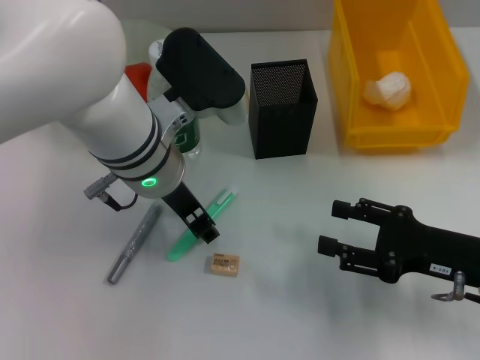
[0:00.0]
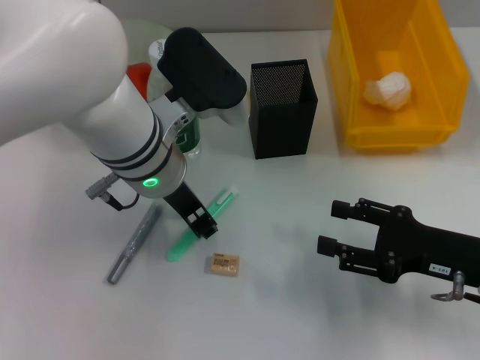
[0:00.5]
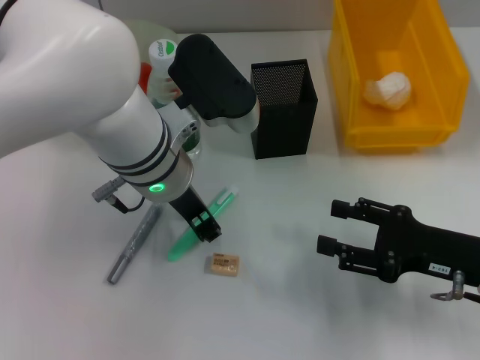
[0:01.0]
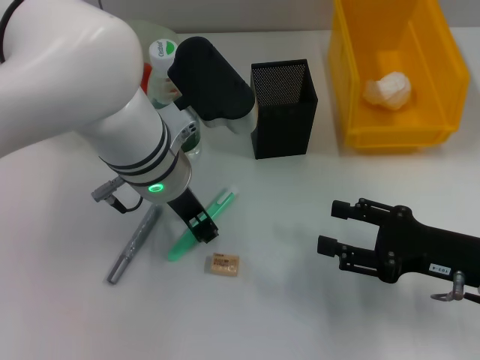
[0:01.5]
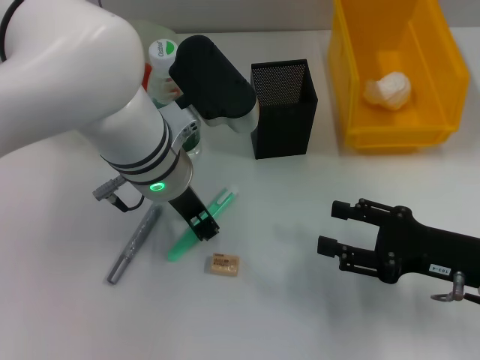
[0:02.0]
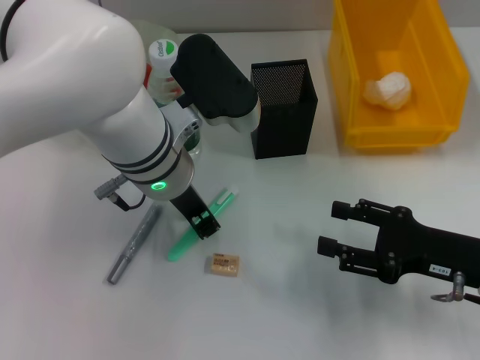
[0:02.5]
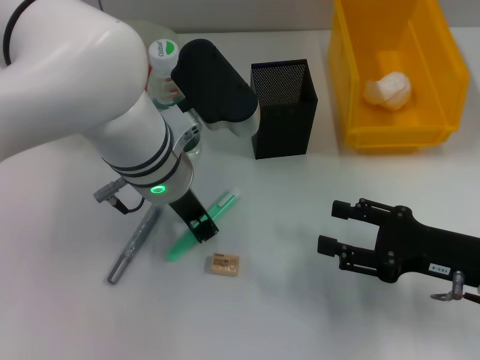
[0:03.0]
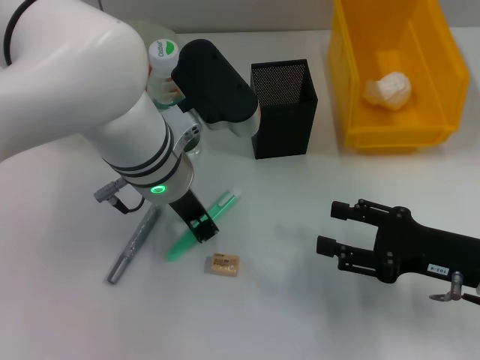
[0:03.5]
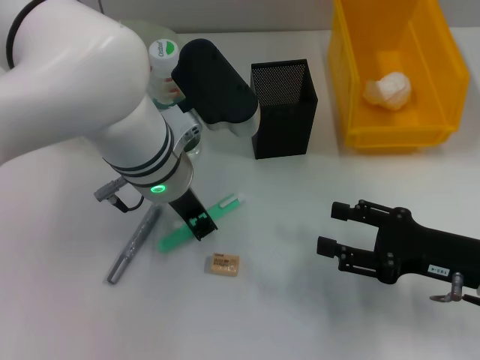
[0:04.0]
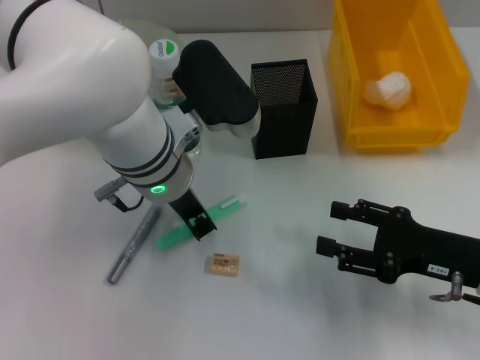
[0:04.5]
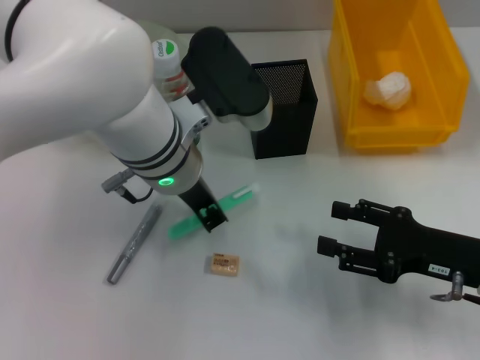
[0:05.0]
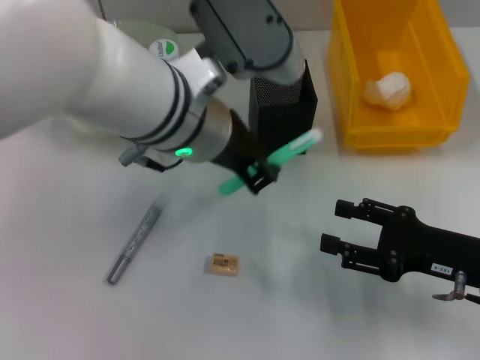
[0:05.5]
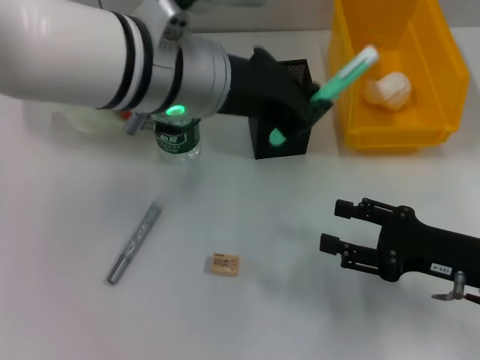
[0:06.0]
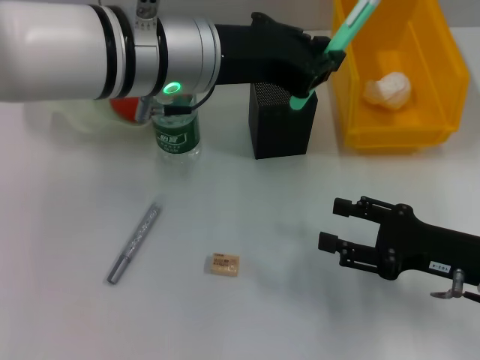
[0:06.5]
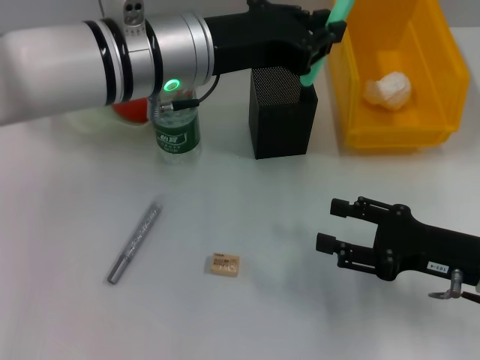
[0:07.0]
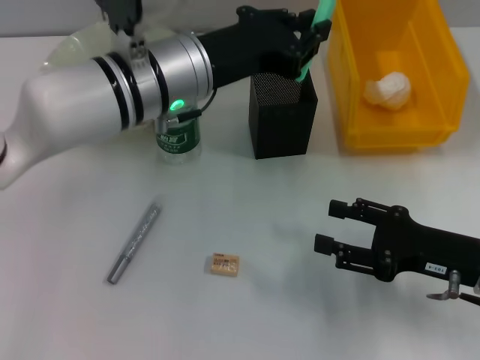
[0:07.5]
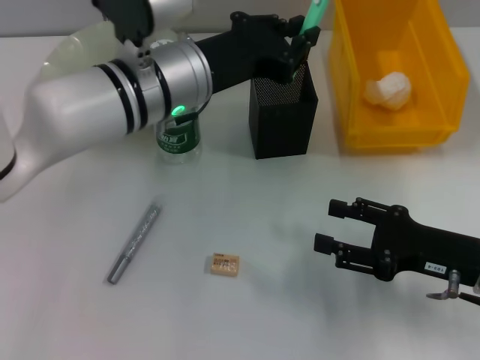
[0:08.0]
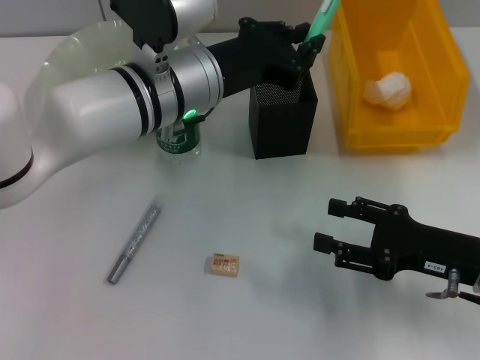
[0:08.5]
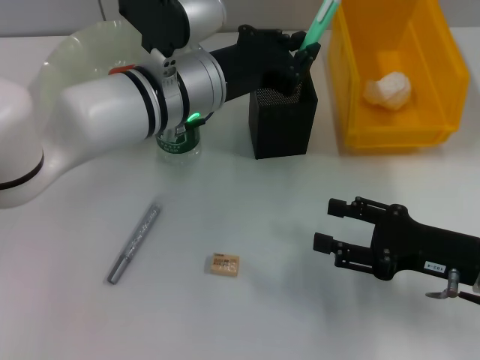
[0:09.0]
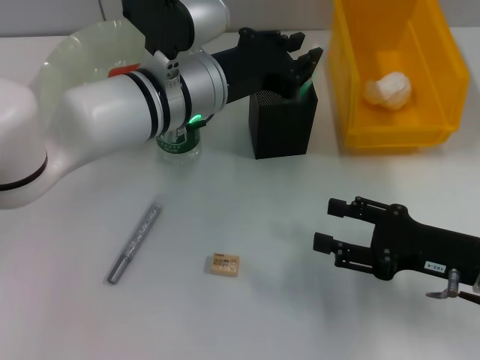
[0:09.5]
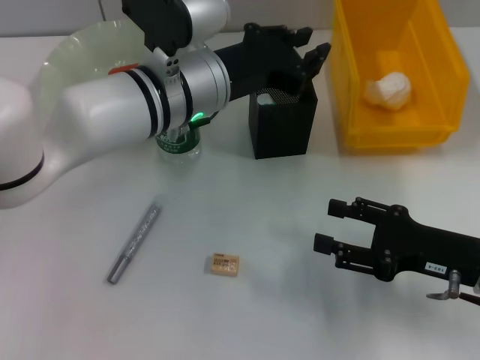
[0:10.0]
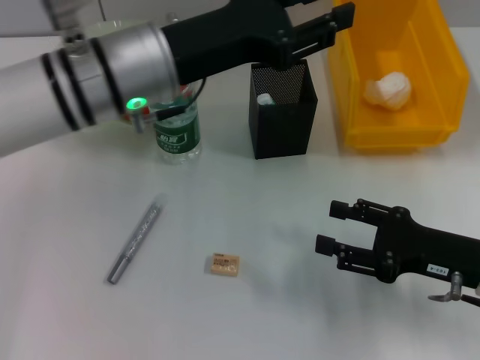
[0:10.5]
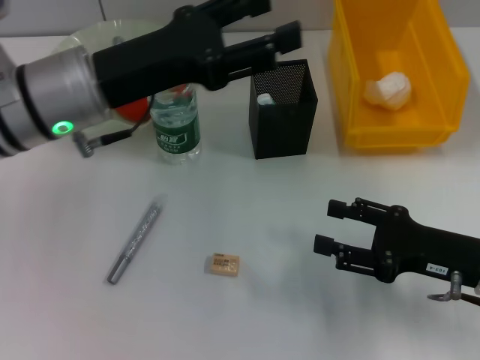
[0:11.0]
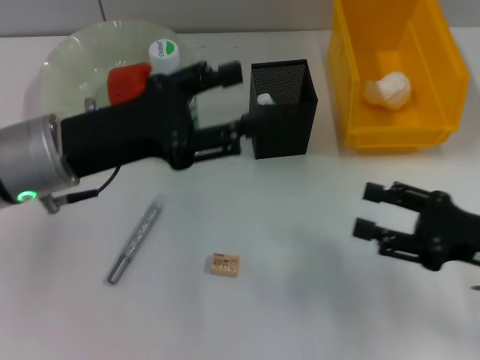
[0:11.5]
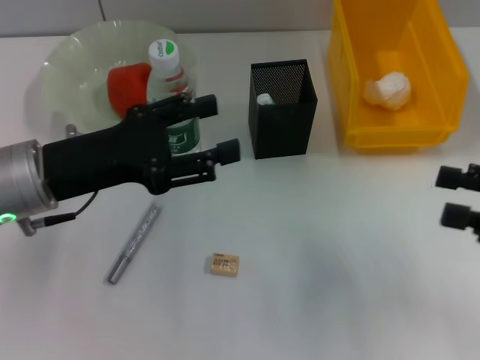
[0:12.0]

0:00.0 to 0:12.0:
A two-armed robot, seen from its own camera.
Step, 0:00.0 to 0:04.0: Grab the blue utility knife with the left hand.
Step, 0:04.5 to 0:10.0: Place the blue utility knife into the pen holder with the left hand.
0:00.0 to 0:04.0: Neither gripper changes place.
0:04.0 to 0:06.0: The left gripper shifts some 10 cm upward.
0:06.0 to 0:08.0: The left gripper shifts about 10 cm downward.
0:08.0 to 0:10.0: There are only small adjustments of the grippers.
0:10.0 to 0:12.0: The right gripper is displaced upward and to the right by roughly 10 cm. Meanwhile the left gripper travels to the left and backward by approximately 15 cm, and opens up.

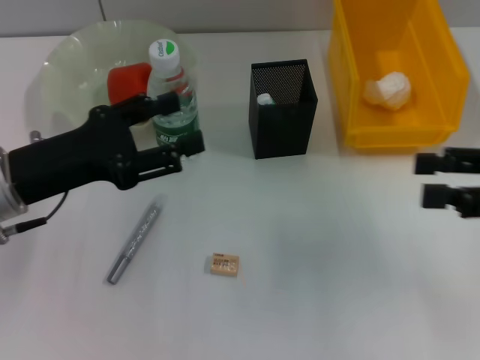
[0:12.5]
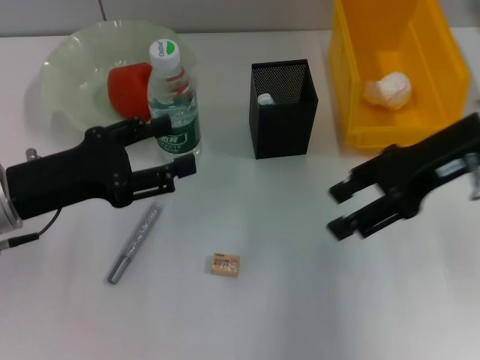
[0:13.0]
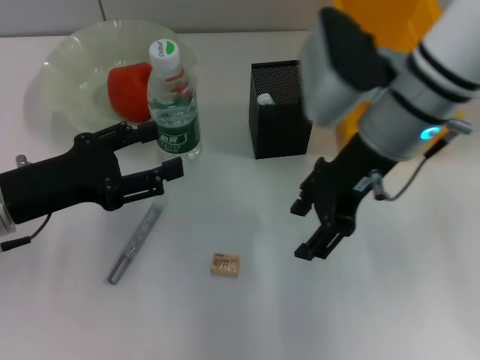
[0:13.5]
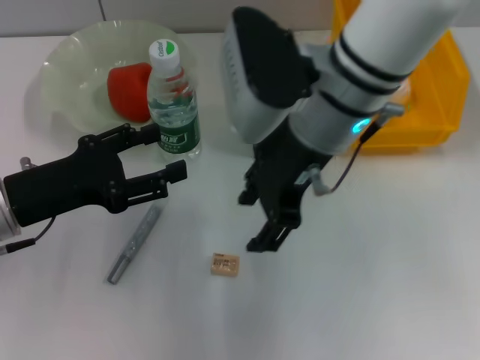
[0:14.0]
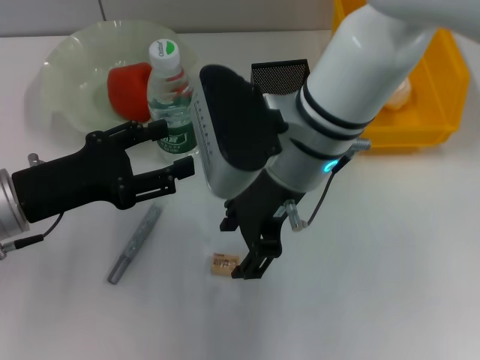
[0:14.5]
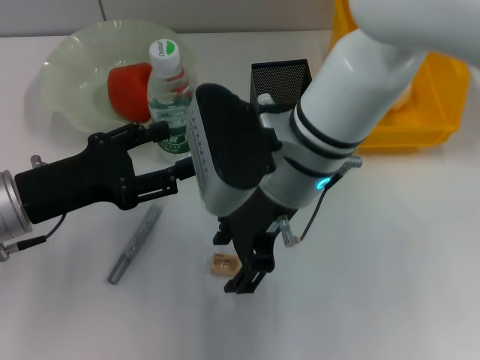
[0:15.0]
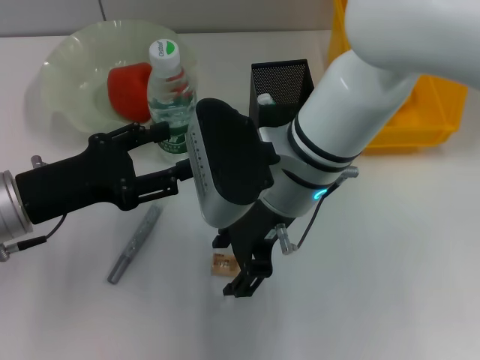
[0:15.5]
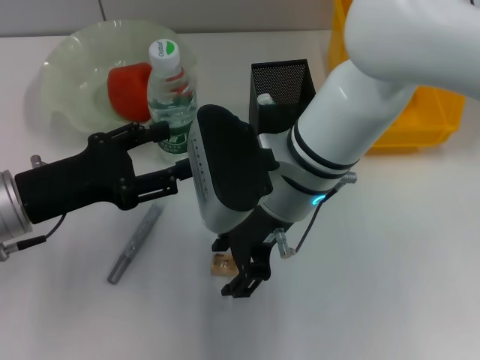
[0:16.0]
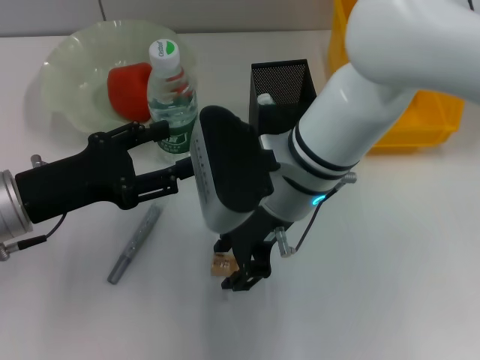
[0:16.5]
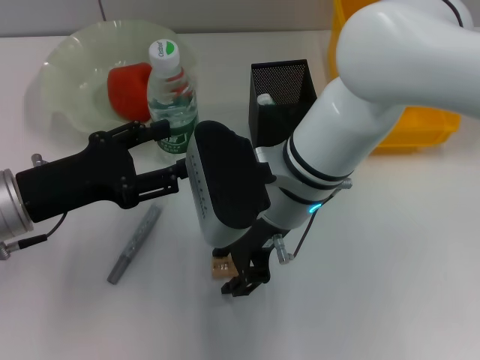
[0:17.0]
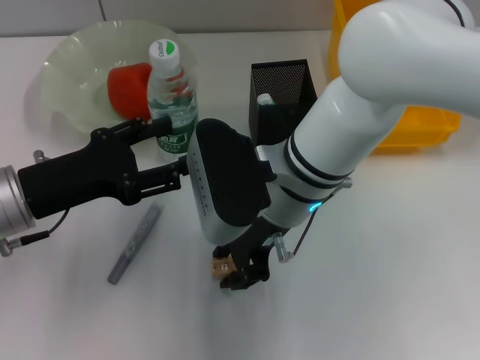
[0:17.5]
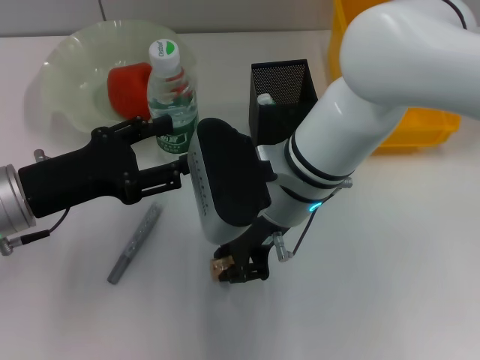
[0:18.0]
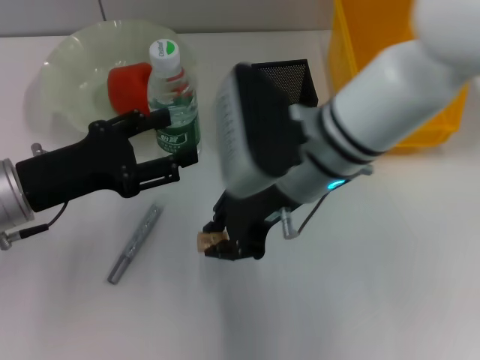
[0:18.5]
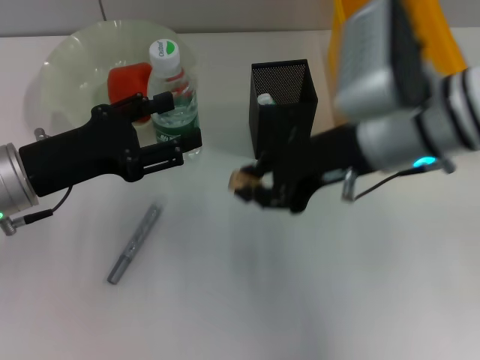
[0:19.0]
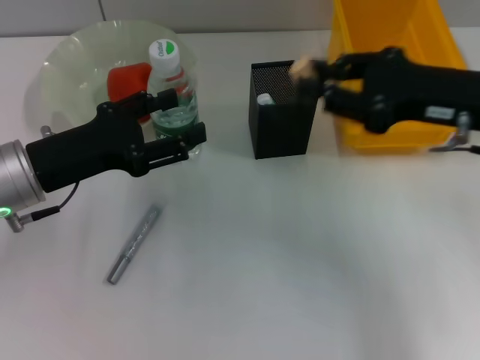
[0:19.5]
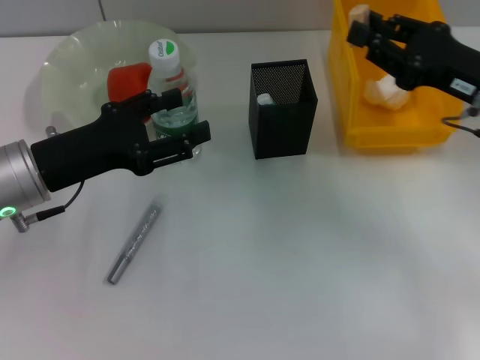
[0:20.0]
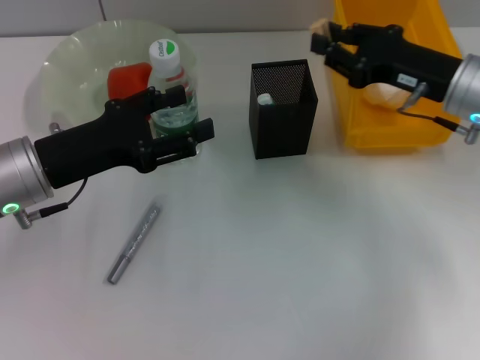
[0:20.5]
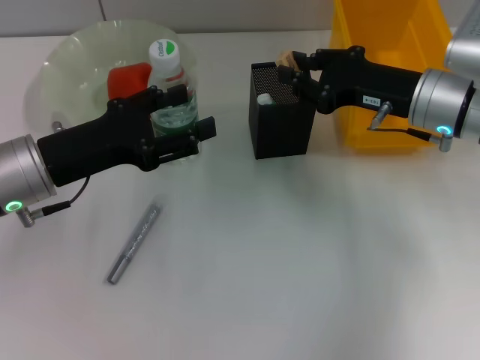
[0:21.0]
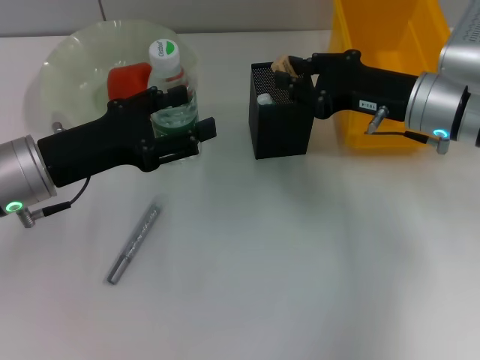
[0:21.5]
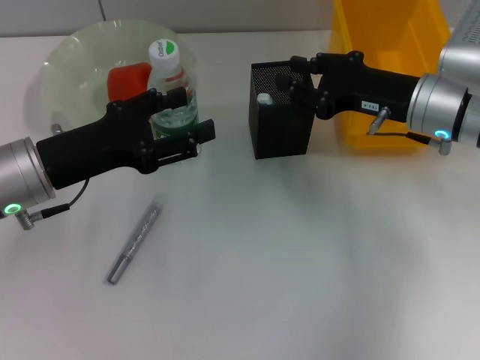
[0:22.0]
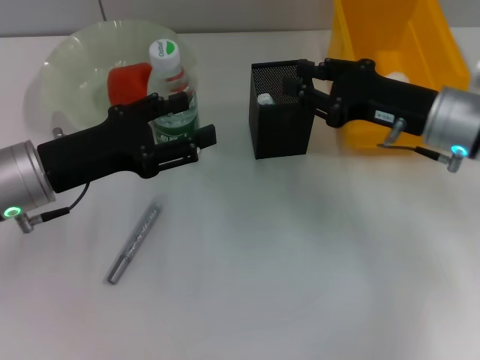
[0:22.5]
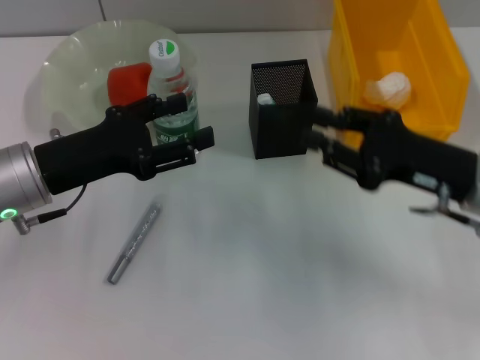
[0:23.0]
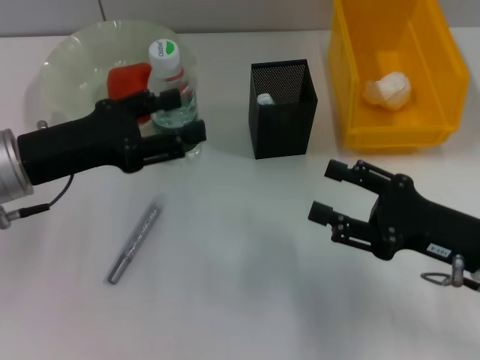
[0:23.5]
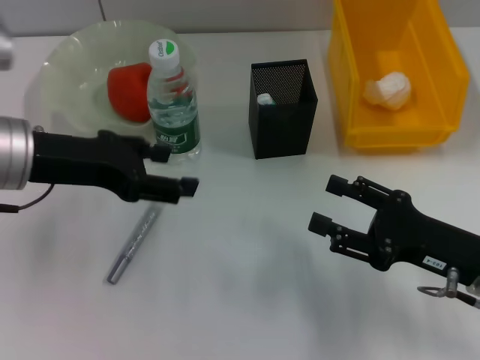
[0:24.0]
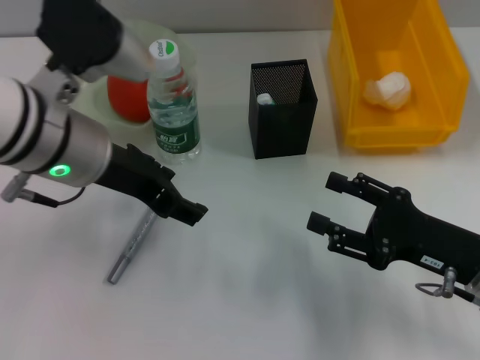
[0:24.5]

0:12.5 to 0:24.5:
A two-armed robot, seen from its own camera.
Step, 0:12.5 to 0:17.5: Grab the eraser with the right hand.
Step, 0:18.0 to 0:22.0: Put the eraser into the pen holder with the right hand.
0:12.5 to 0:14.5: The right gripper is displaced to the left by approximately 30 cm.
0:14.5 to 0:16.5: The grippers move only a little.
0:16.5 to 0:18.5: The right gripper closes up.
0:18.5 to 0:20.5: The right gripper moves to the right, about 15 cm.
0:20.5 to 0:22.5: There are only small adjustments of the grippers.
0:22.5 to 0:24.5: The left gripper travels upward and to the right by some 10 cm. Meanwhile the right gripper shifts about 15 cm backward and downward, and opens up.

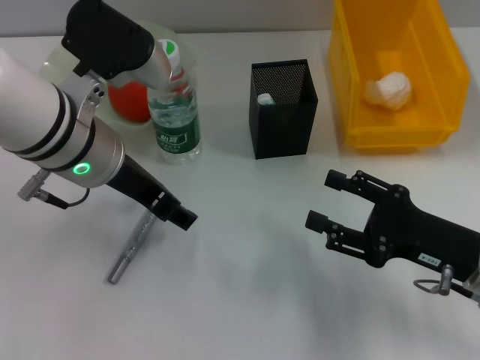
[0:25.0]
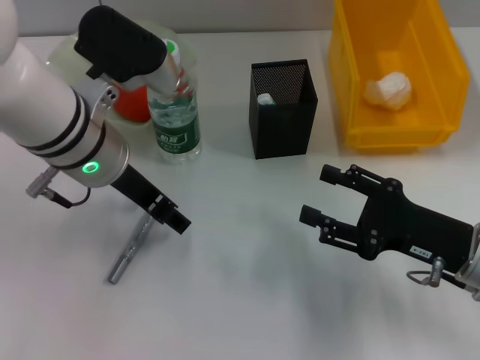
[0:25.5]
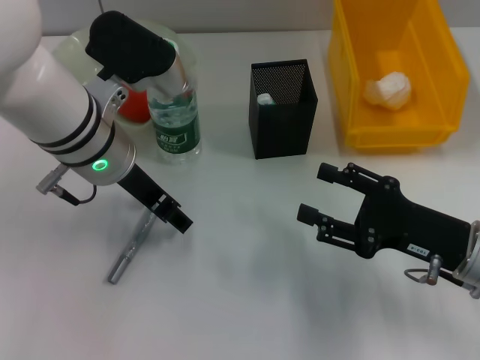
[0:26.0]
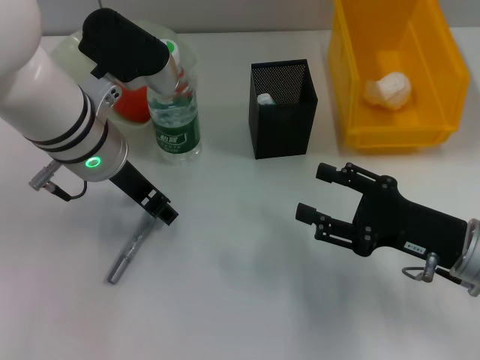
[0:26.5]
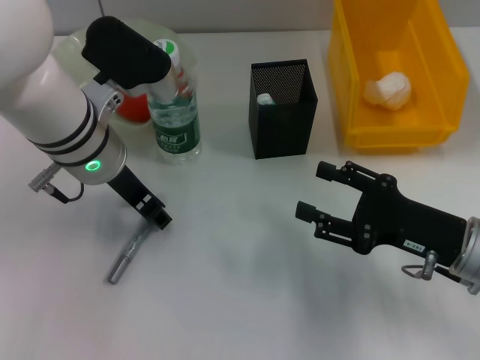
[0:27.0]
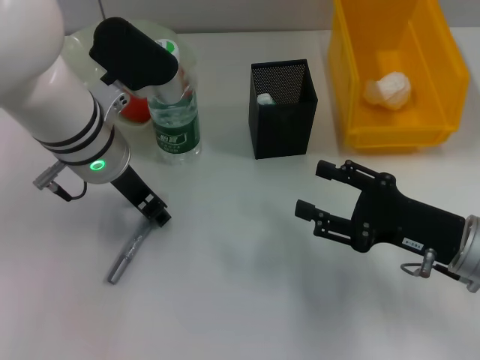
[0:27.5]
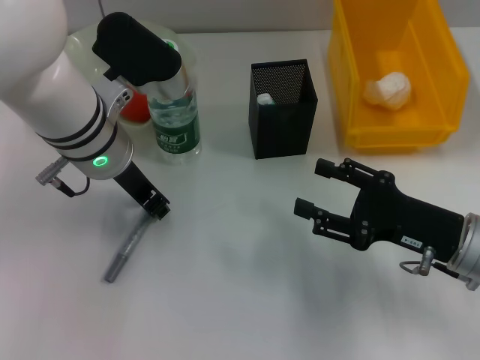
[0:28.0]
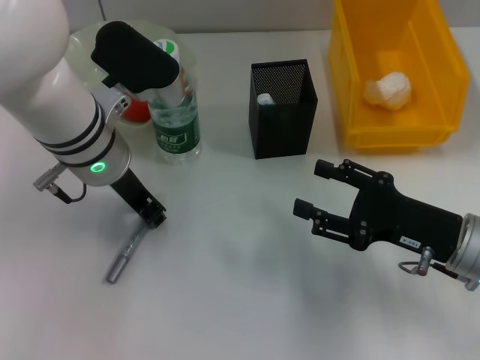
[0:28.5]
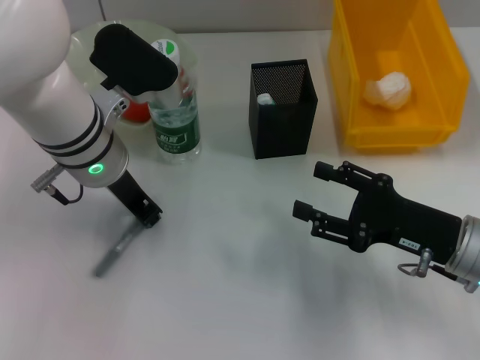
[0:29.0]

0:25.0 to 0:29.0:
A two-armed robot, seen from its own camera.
0:25.0 to 0:27.0: The grippers stay close to where they were, moving slightly.
0:27.0 to 0:29.0: The left gripper closes.
